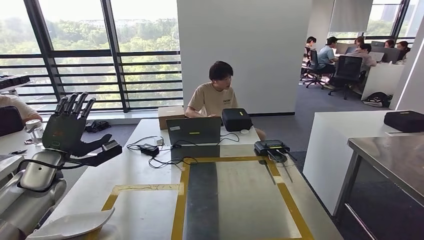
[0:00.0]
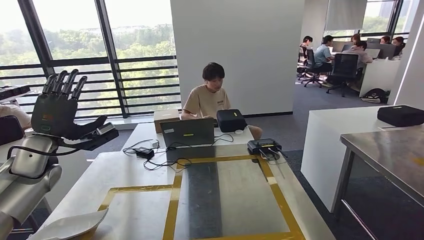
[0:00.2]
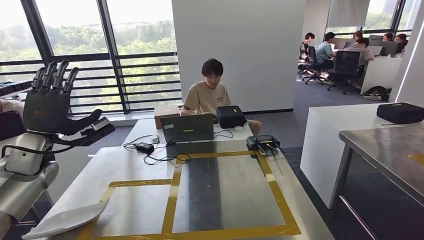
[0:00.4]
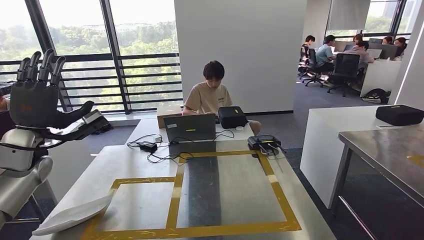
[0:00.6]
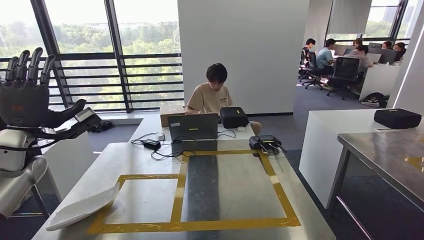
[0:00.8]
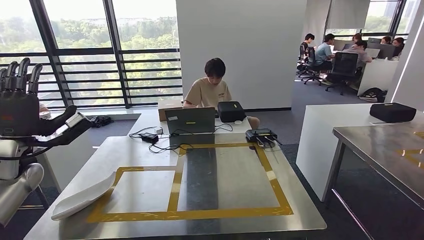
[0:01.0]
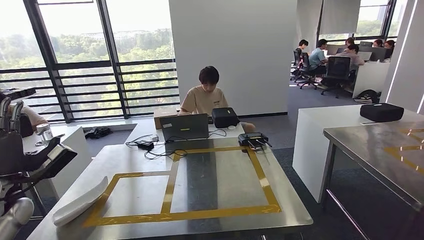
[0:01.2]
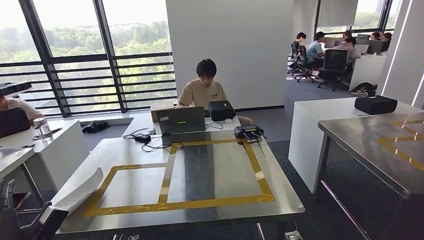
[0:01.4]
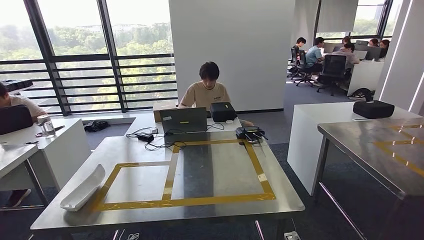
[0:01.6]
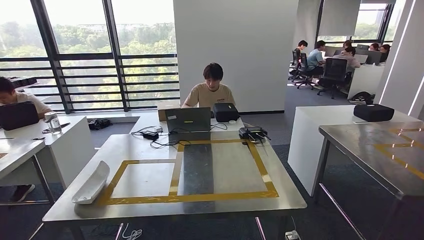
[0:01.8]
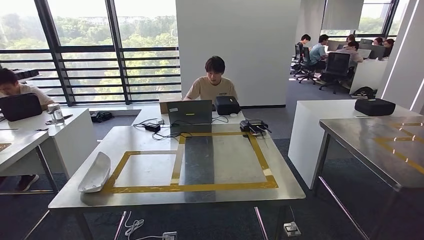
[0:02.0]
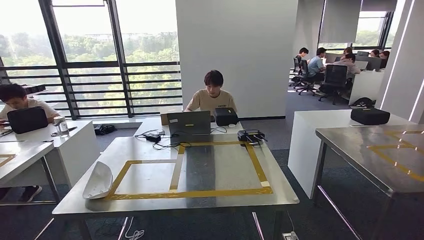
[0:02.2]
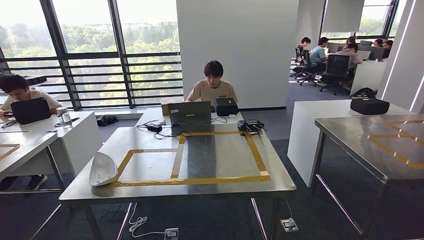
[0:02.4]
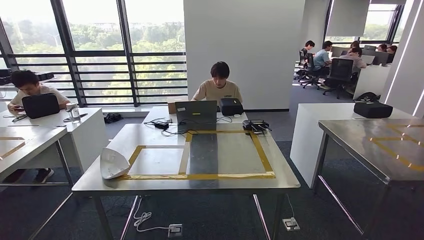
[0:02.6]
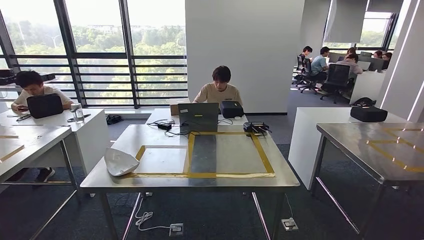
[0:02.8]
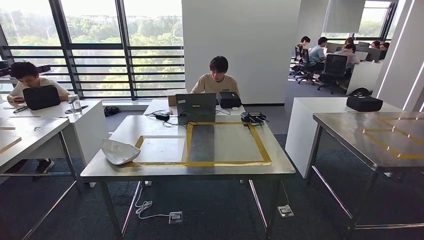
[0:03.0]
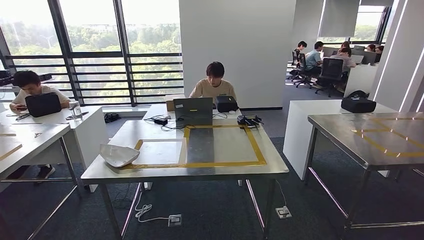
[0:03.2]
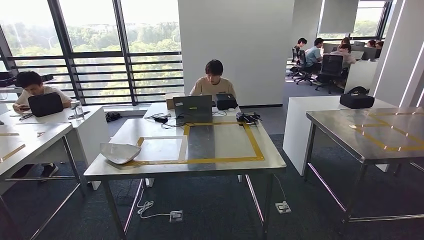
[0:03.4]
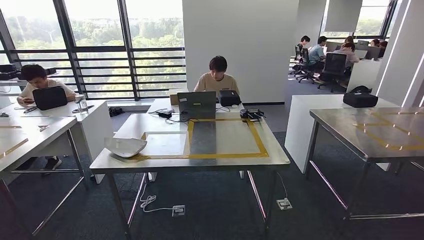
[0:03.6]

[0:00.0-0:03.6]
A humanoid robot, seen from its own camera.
Step, 0:00.0 to 0:03.4: Move to the initial position at the workbench.
